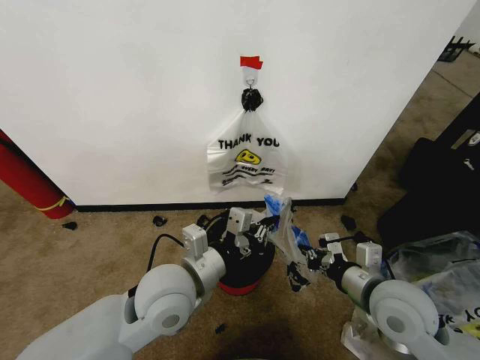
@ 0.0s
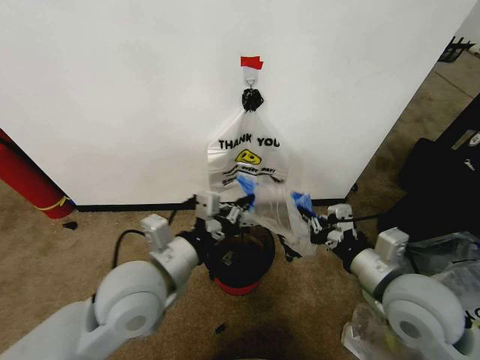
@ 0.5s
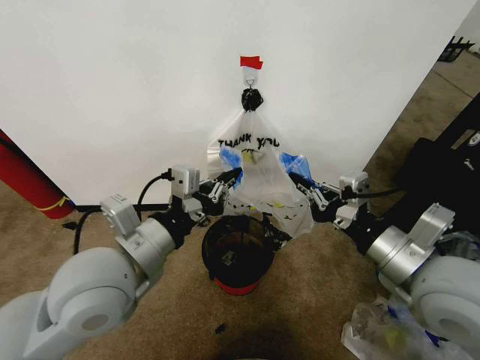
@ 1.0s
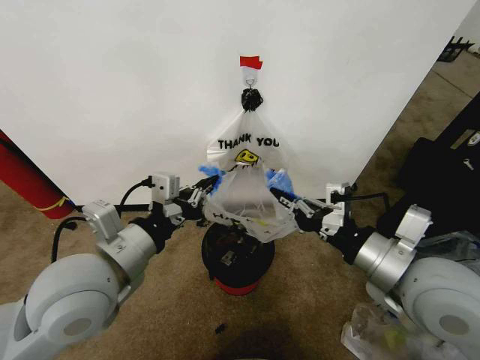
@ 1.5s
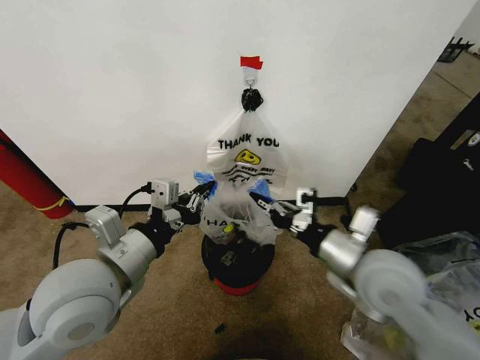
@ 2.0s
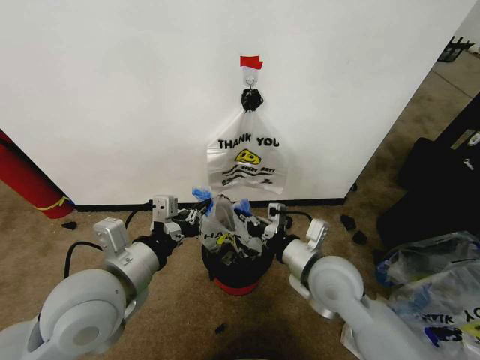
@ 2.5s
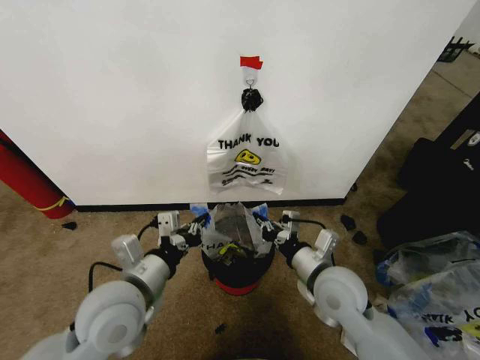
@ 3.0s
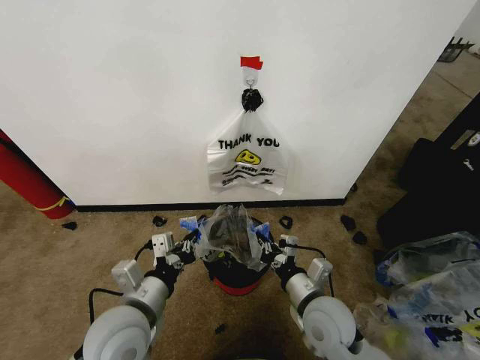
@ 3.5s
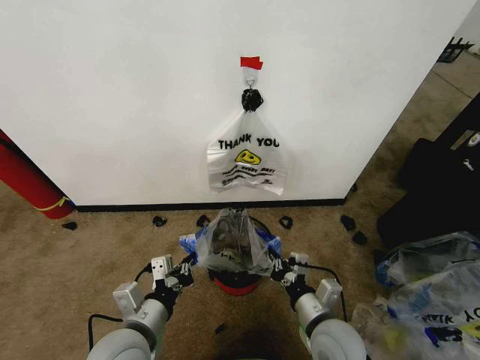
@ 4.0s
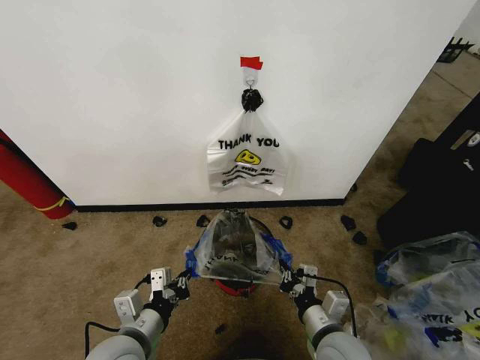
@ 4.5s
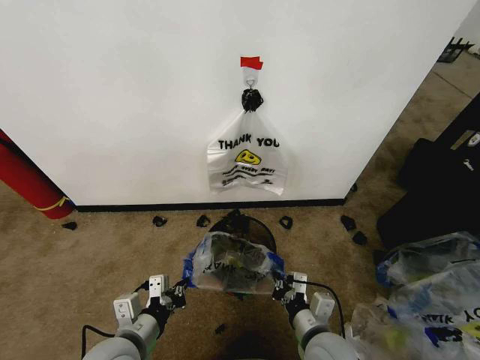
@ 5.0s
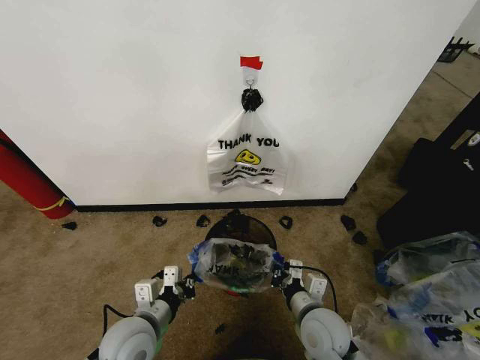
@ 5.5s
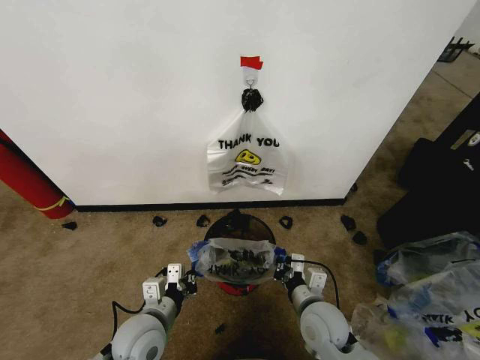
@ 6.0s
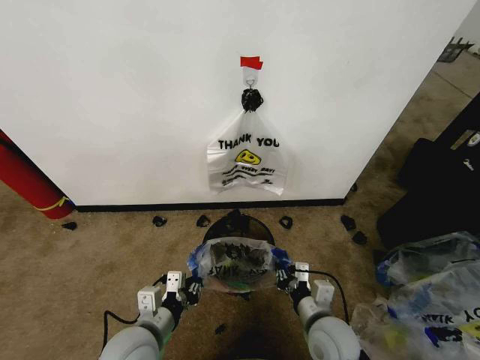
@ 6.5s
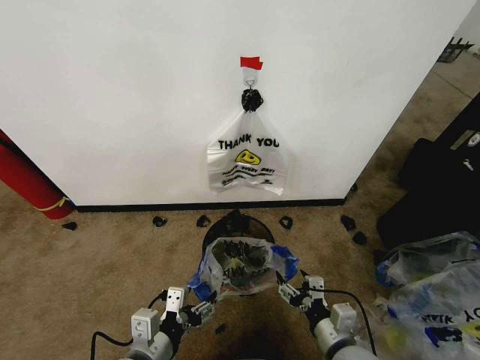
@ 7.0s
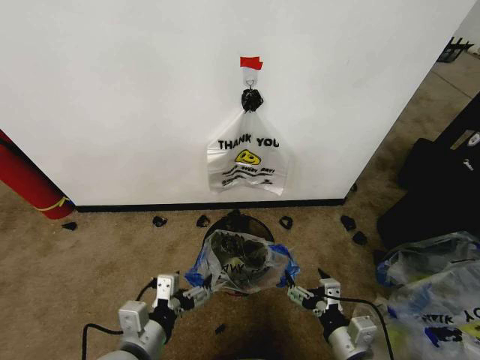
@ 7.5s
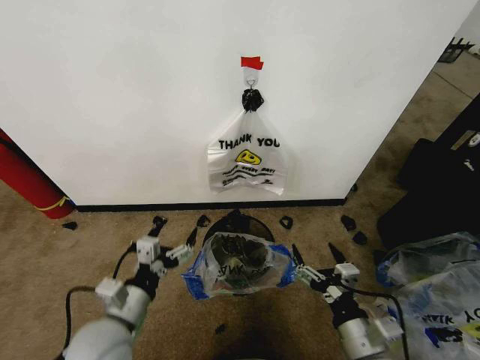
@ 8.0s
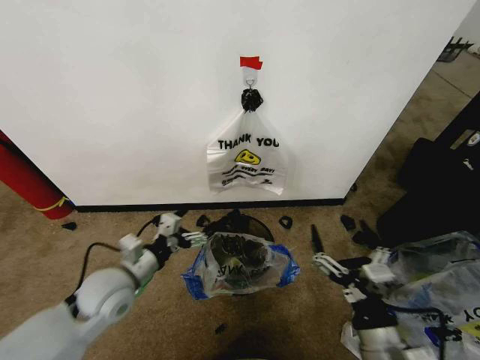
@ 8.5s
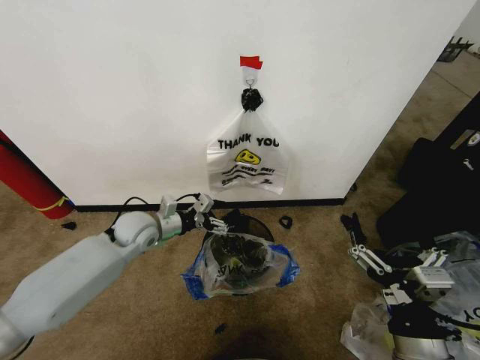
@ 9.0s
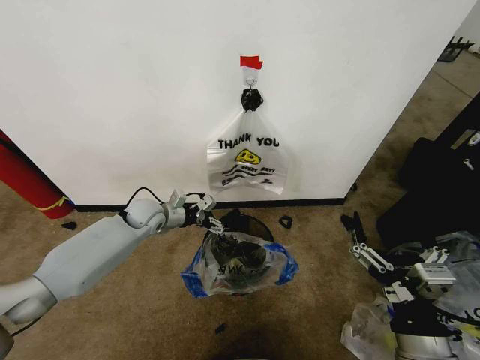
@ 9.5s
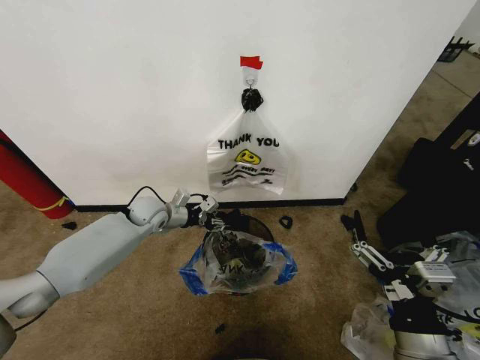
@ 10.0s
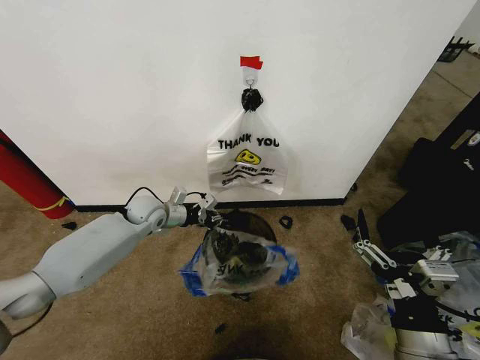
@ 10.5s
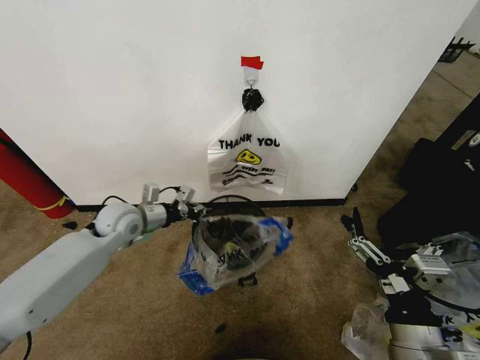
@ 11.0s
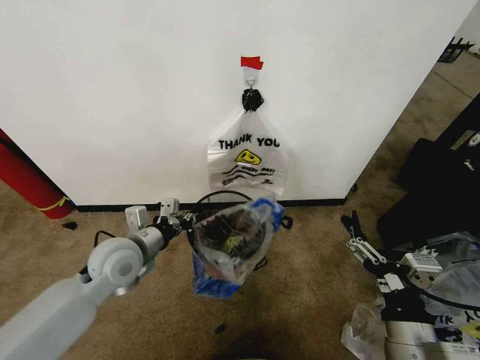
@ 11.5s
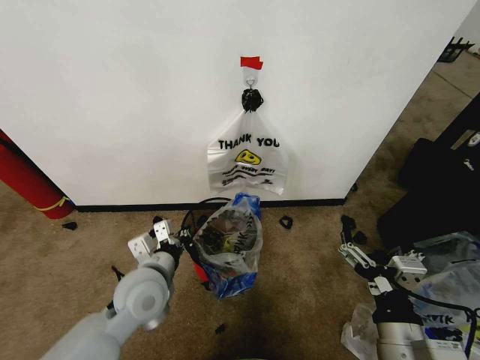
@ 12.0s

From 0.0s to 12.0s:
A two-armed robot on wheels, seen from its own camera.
Task of the whole recording: Pick up the garbage bag from the wall and place it over the trash bin.
From 0.0s to 2.0s: The left gripper is displaced to the left and upward by about 10 cm. Meanwhile the right gripper travels upward by approximately 5 cm.
From 2.0s to 4.0s: Both grippers move downward, some 15 cm.
From 4.0s to 6.0s: The left gripper moves downward, approximately 5 cm. Meanwhile the right gripper shifts by some 5 cm.
From 6.0s to 8.0s: The right gripper heads backward, to the right and upward, covering roughly 15 cm, and opens up; the left gripper shifts about 5 cm upward, moves roughly 10 cm backward and comes back, and opens its fingers.
From 8.0s to 10.0s: The right gripper travels upward by some 10 cm. The left gripper shifts some 30 cm forward, and closes.
From 10.0s to 12.0s: The left gripper shifts about 25 cm backward, and closes its fingers.

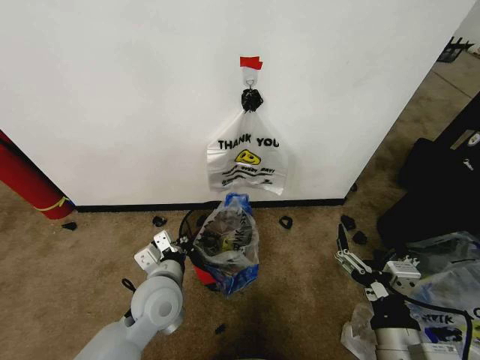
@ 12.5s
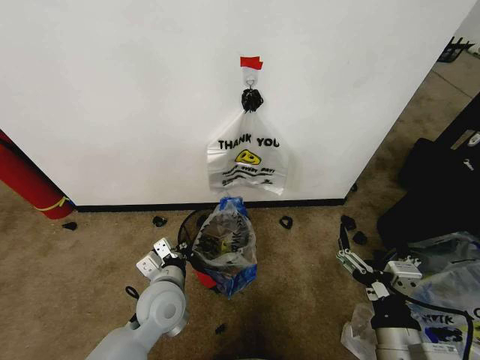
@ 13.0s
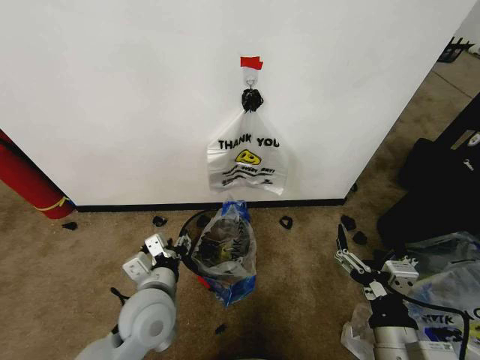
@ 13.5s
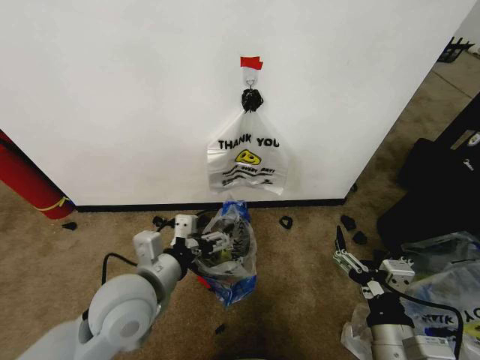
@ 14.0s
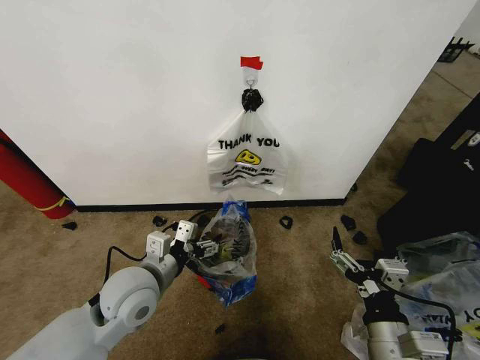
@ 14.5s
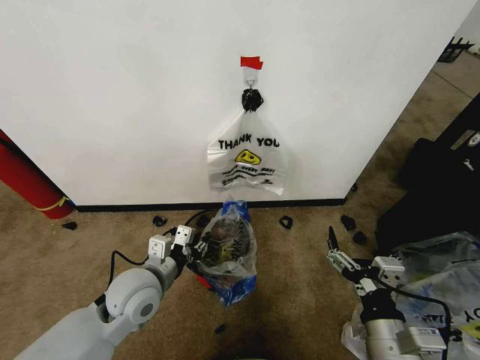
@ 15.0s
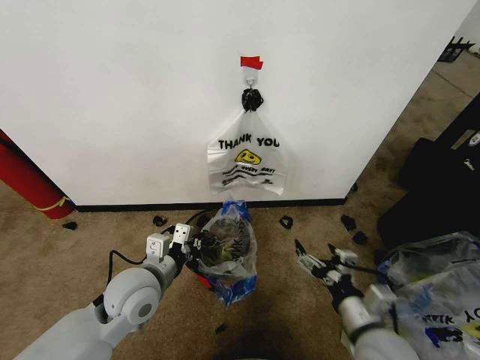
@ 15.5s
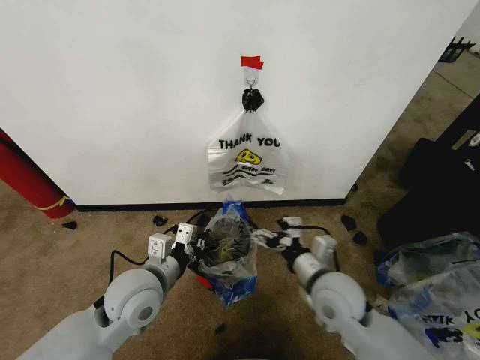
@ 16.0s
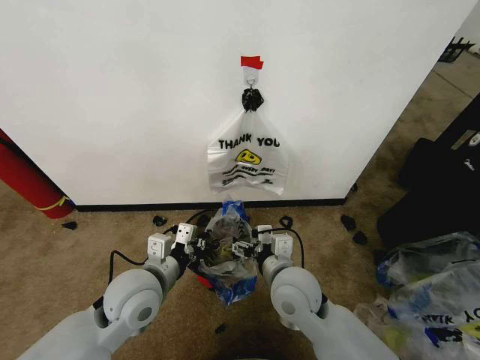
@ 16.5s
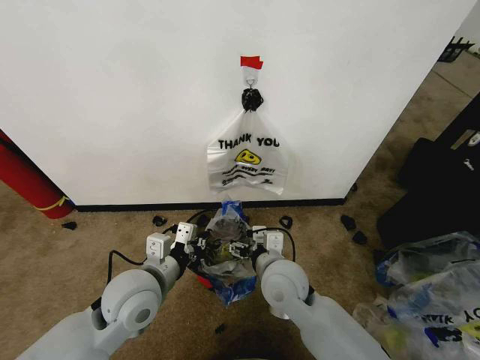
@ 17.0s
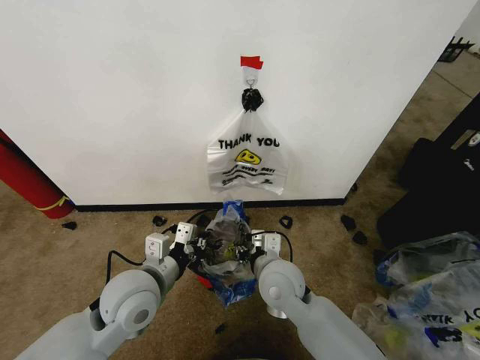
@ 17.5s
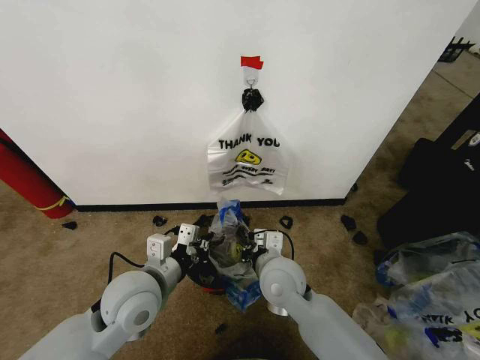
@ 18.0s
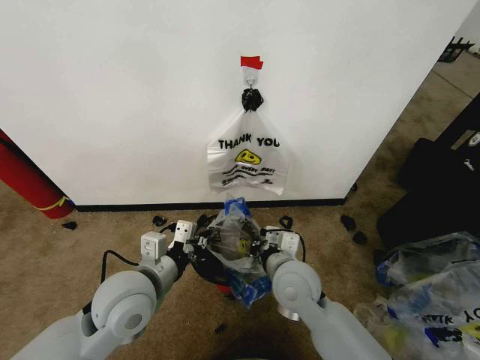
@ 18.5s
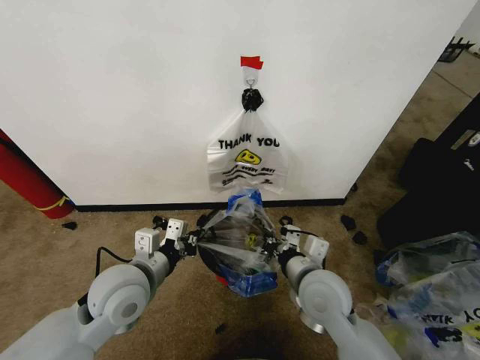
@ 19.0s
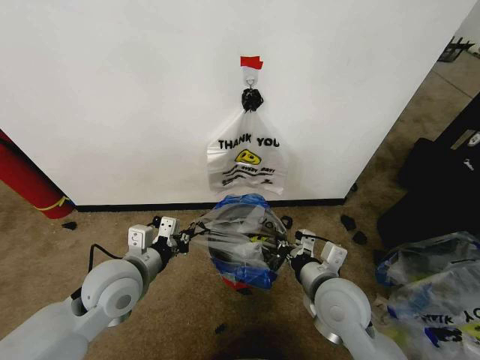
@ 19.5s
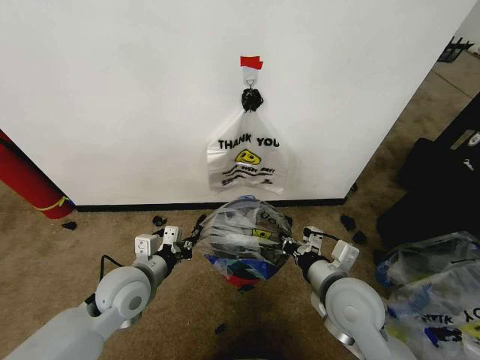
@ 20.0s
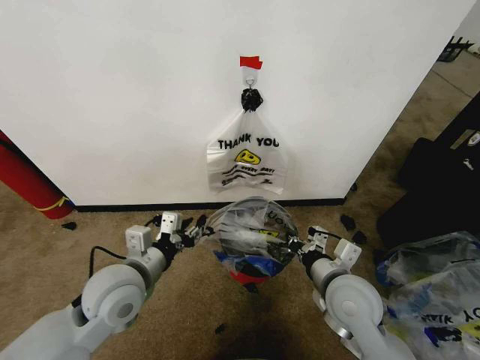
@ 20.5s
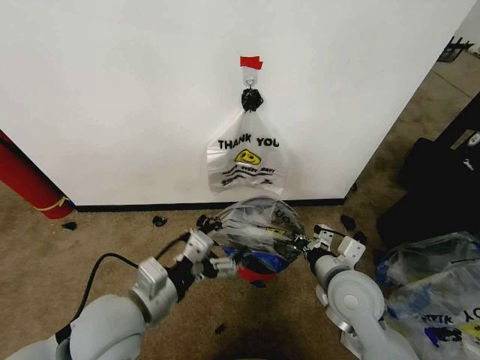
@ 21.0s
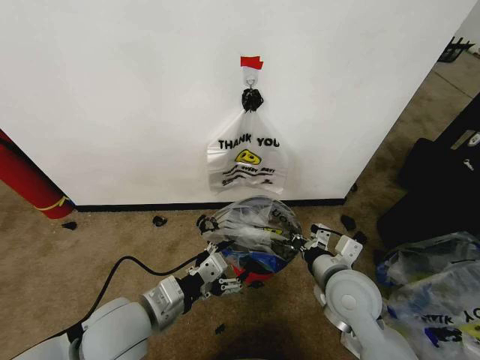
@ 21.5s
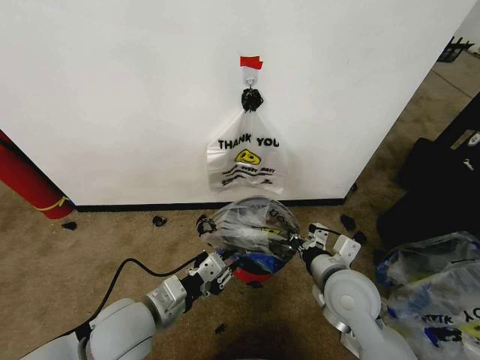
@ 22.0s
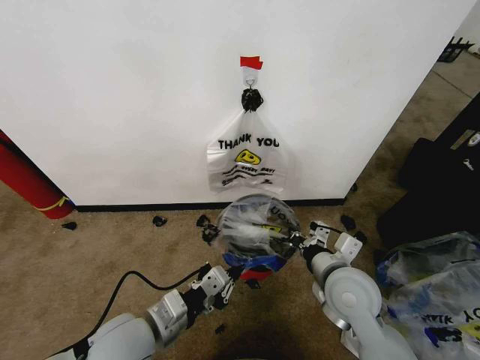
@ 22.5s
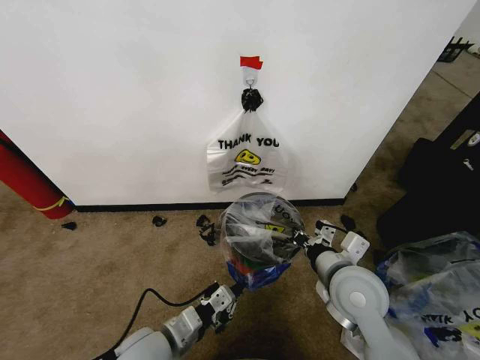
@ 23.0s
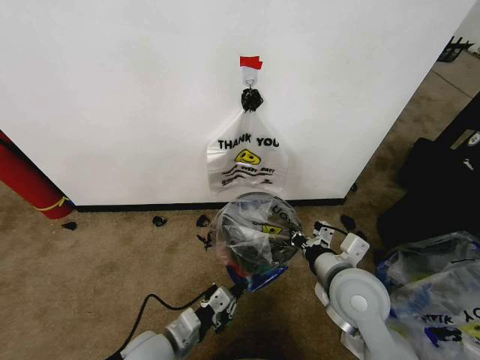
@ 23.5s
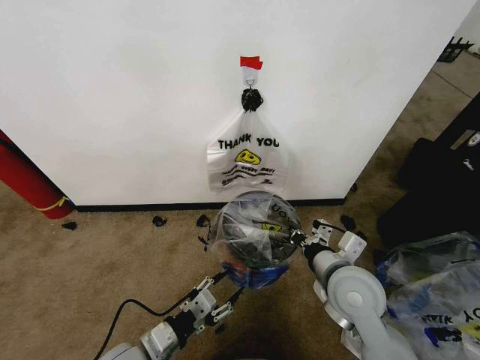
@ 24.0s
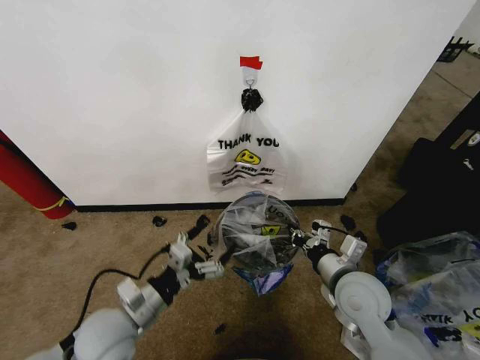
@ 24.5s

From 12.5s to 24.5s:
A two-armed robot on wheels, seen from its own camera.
Task of the whole recording: Pick up the garbage bag from the wall and place it over the trash bin.
From 12.5s to 14.5s: The left gripper heads upward, covering about 5 cm, and opens.
From 14.5s to 16.5s: The left gripper closes up; the right gripper moves forward and to the left, approximately 20 cm.
From 16.5s to 18.5s: The right gripper closes its fingers.
From 18.5s to 20.5s: The left gripper opens up. The right gripper moves to the right, about 10 cm.
From 20.5s to 22.5s: The left gripper is displaced backward by approximately 5 cm, and closes its fingers.
From 22.5s to 24.5s: The left gripper opens up.

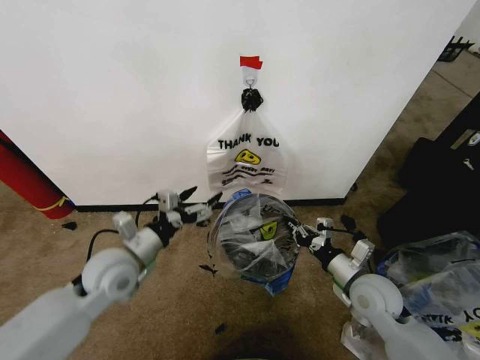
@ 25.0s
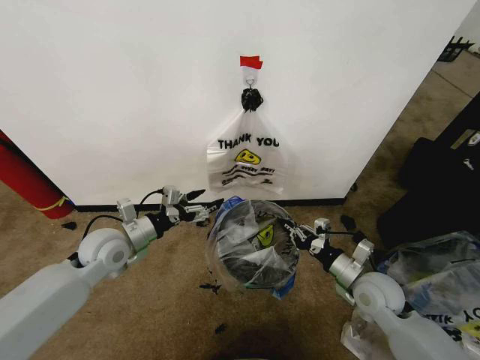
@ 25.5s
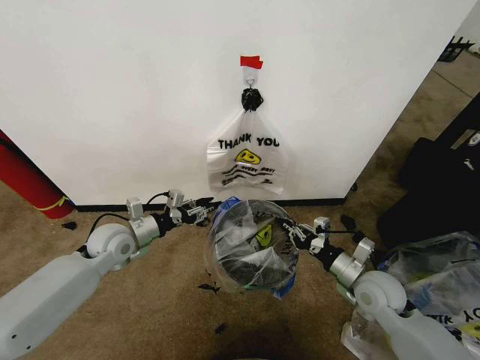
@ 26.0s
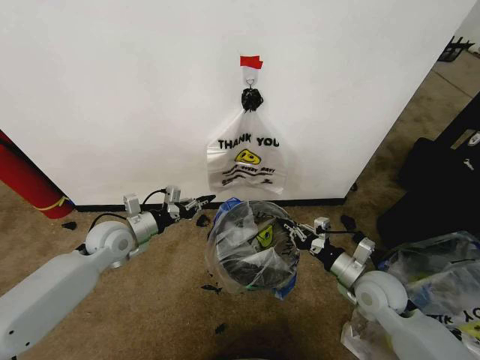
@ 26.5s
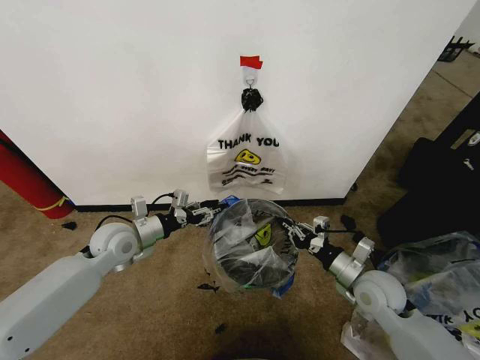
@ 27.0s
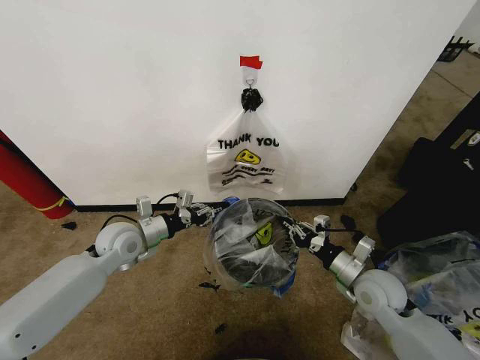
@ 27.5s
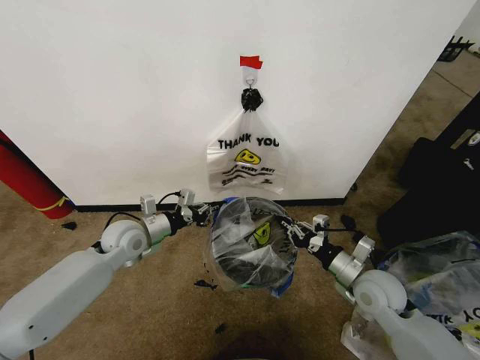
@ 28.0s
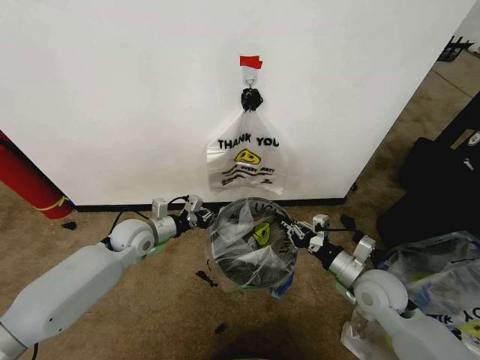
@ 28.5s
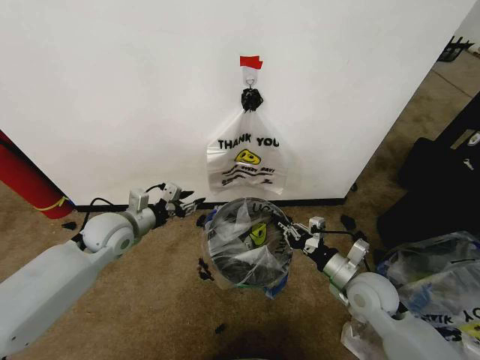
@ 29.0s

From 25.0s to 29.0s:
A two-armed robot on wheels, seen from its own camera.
Task of the whole recording: Pick up the garbage bag from the wall and place it over the trash bin.
From 25.0s to 27.0s: The left gripper goes approximately 10 cm forward, and closes.
From 27.0s to 29.0s: The left gripper closes and opens again.
